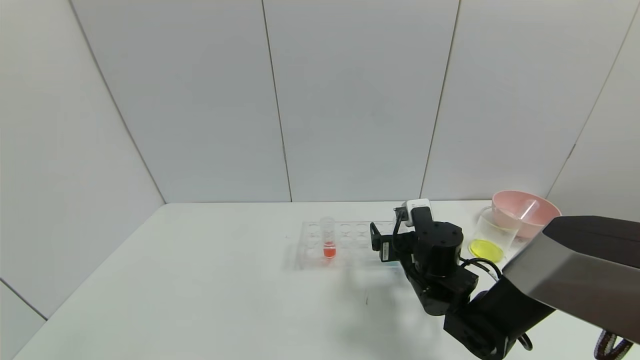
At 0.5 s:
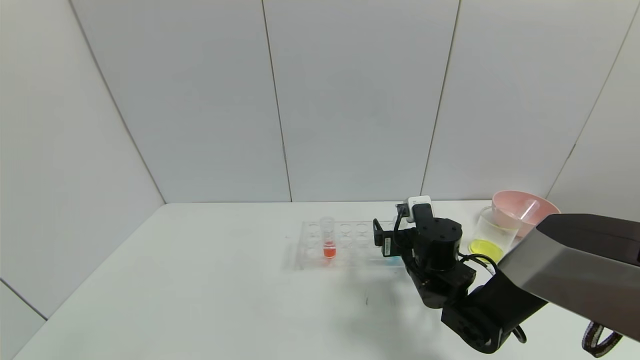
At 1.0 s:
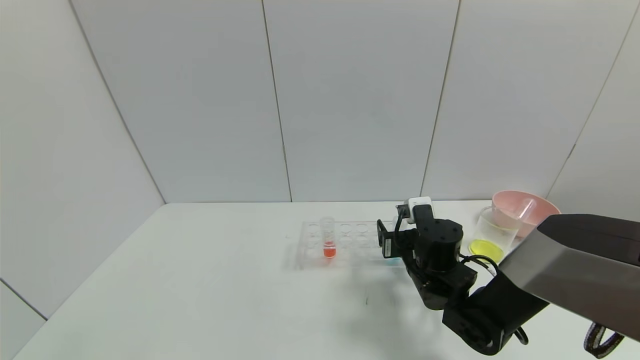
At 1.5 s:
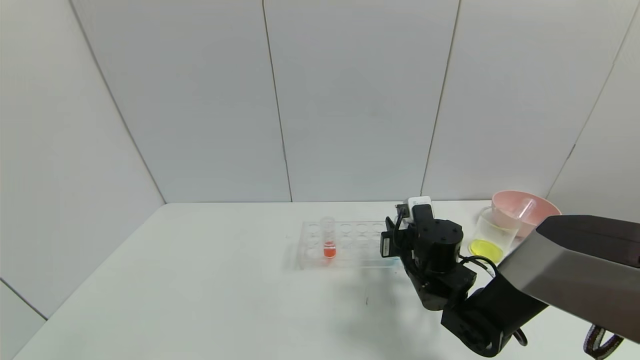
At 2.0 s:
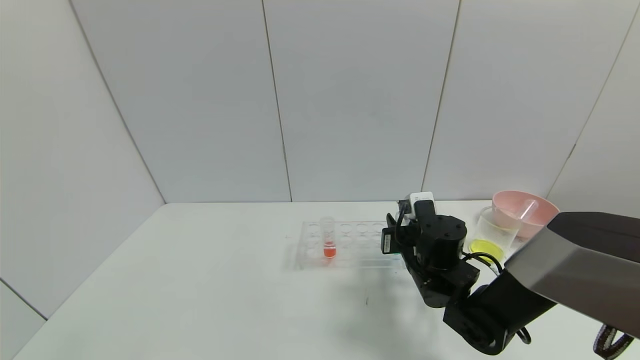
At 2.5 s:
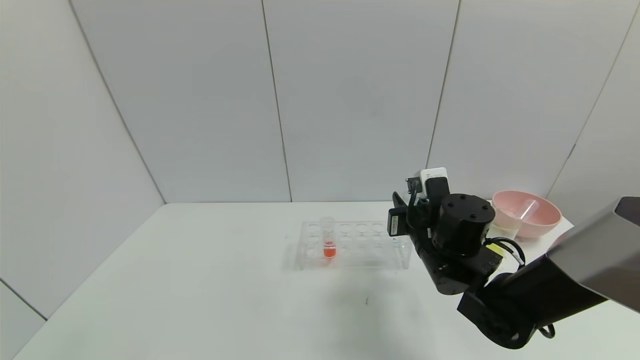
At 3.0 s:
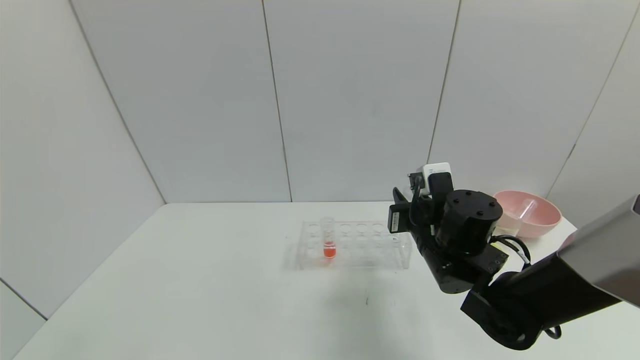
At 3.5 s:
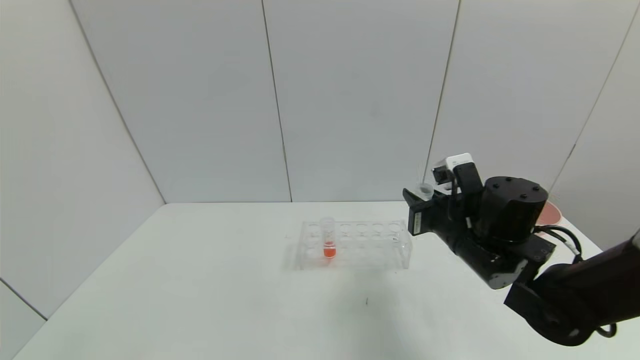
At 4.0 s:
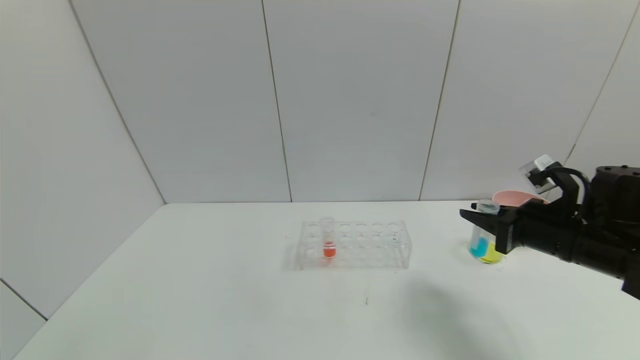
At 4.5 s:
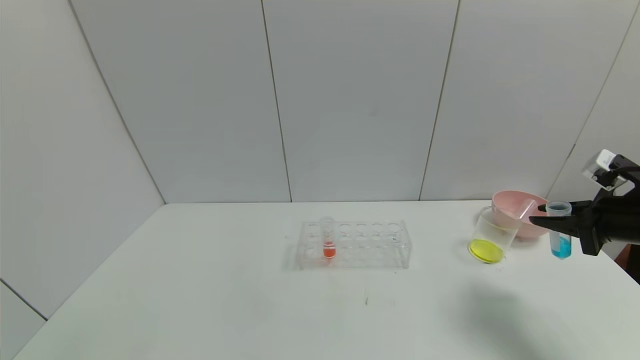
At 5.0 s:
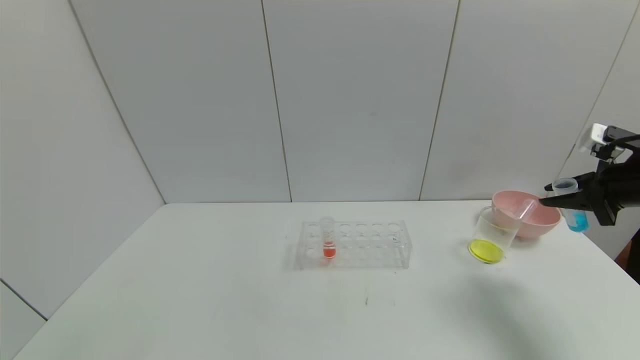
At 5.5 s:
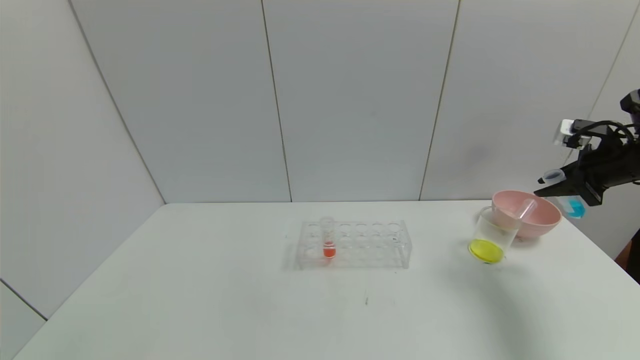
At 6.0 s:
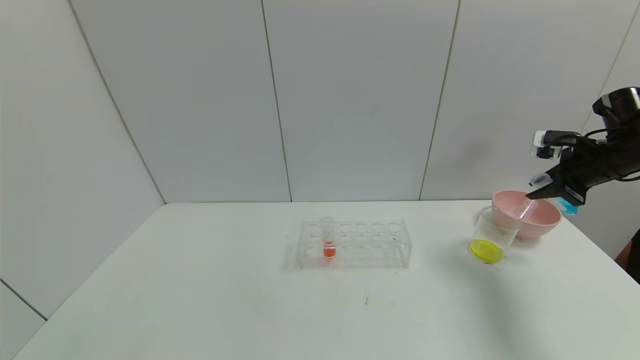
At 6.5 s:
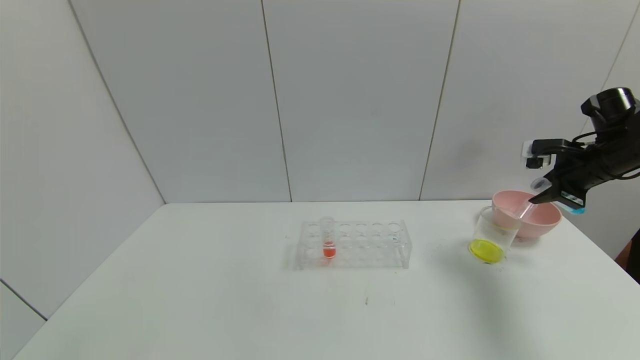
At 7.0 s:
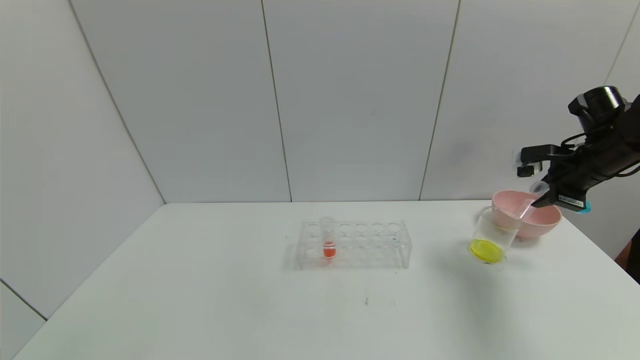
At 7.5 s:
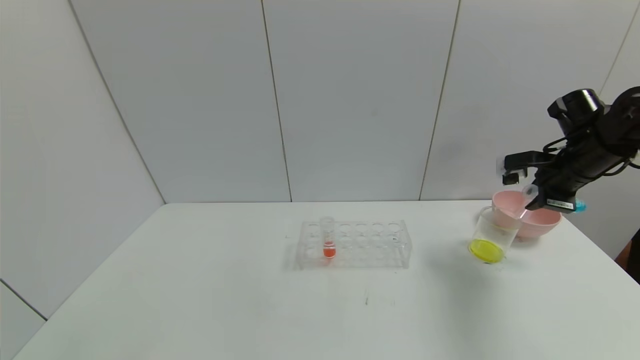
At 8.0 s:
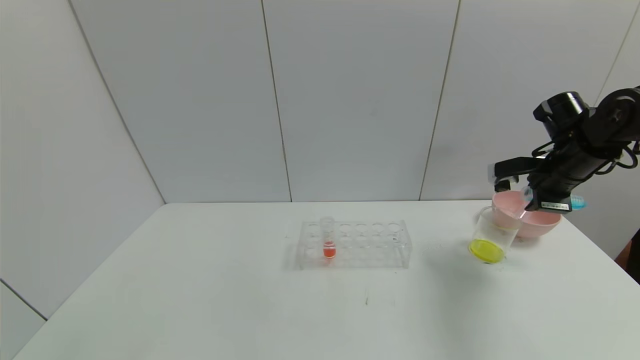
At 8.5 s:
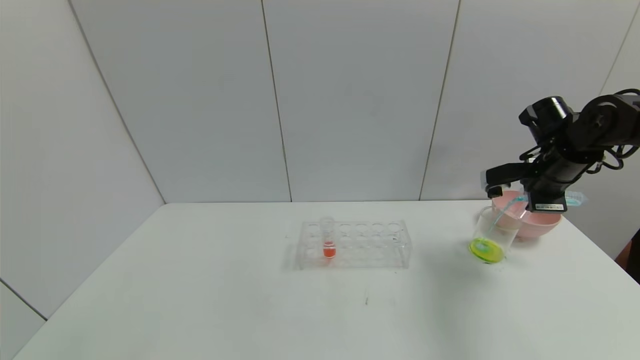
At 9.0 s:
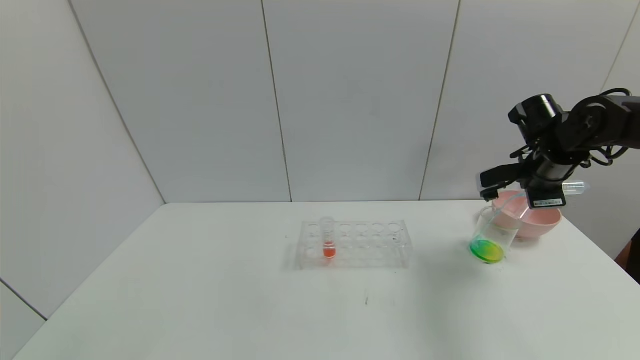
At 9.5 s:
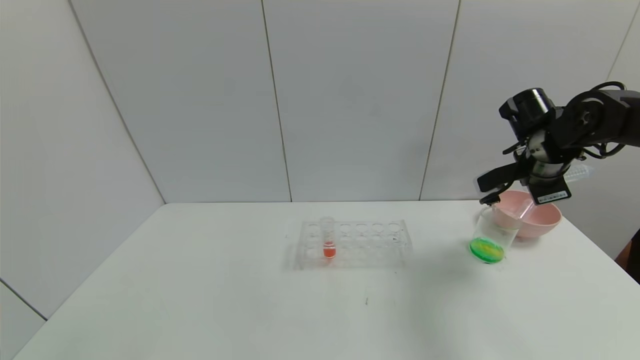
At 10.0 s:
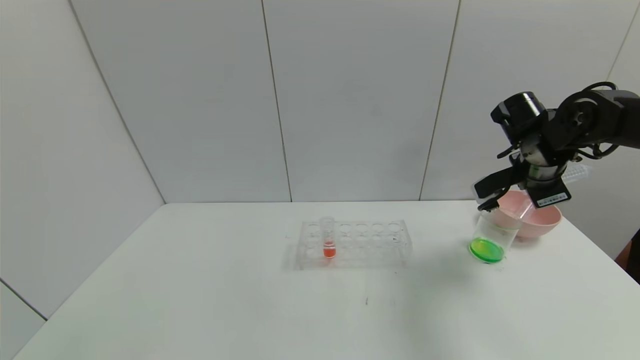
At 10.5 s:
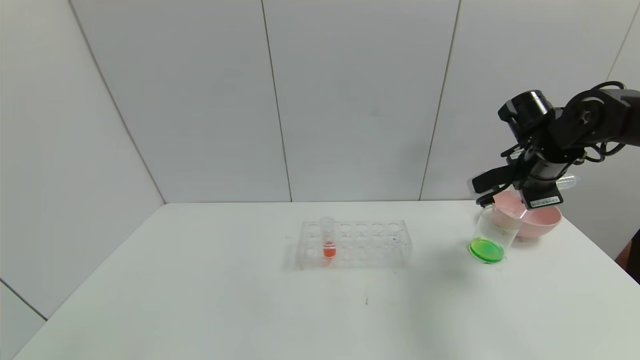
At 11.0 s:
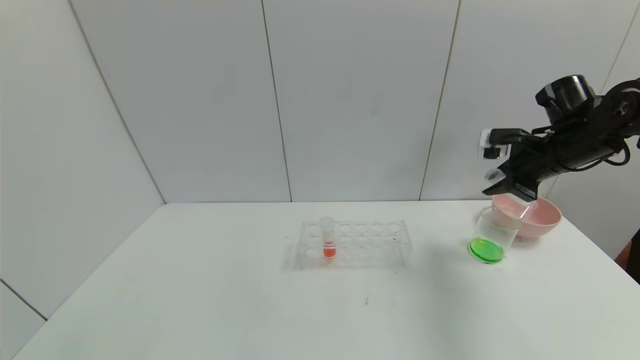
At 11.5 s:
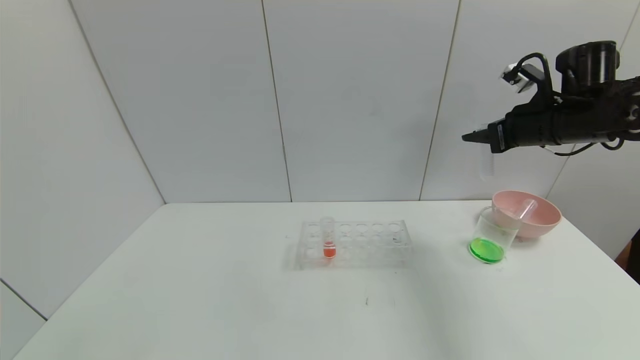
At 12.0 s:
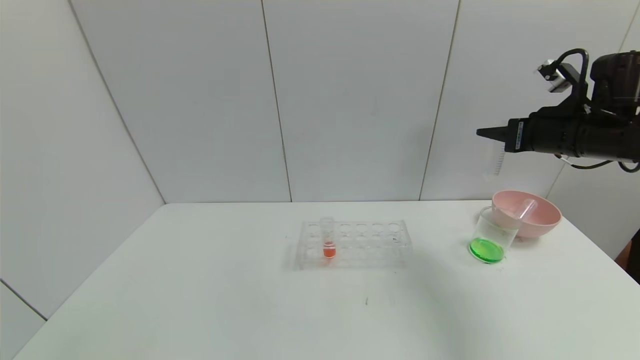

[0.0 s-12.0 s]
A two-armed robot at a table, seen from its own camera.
Task of the whole recording: pick up the test tube with yellow pigment and the test tube with blue pigment by grippers and pour them into the beaker.
Step, 0.0 to 4.5 s: Pick up the test tube containing the blue reagent with right gripper.
0.0 to 2.0 s: The right gripper closes up.
2.0 to 4.0 s: The right gripper moves to the right and upward, about 20 cm.
4.0 to 6.0 s: The right gripper shifts about 20 cm to the right, forward and upward.
6.0 to 8.0 s: The right gripper shifts about 5 cm to the left.
8.0 to 10.0 s: The right gripper heads to the left, covering roughly 5 cm.
10.0 to 12.0 s: The right gripper ends up about 5 cm from where it was.

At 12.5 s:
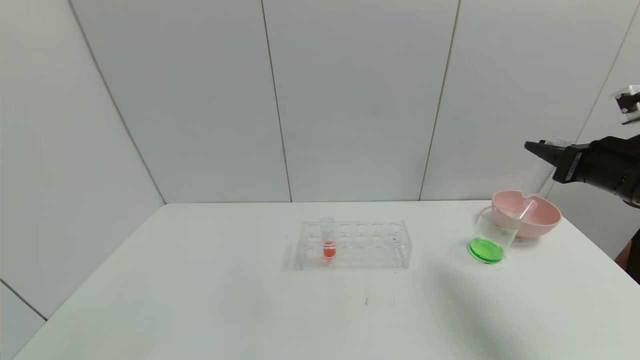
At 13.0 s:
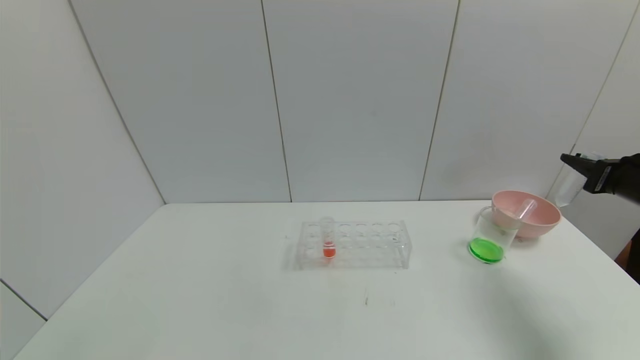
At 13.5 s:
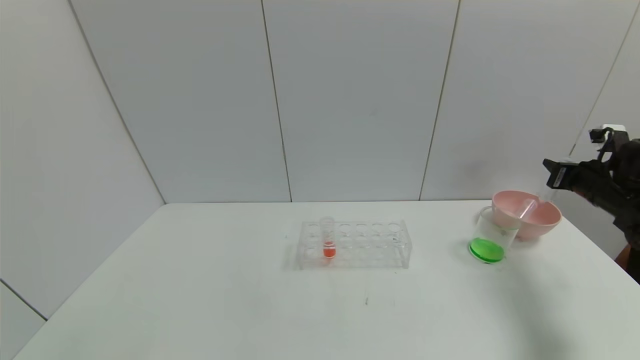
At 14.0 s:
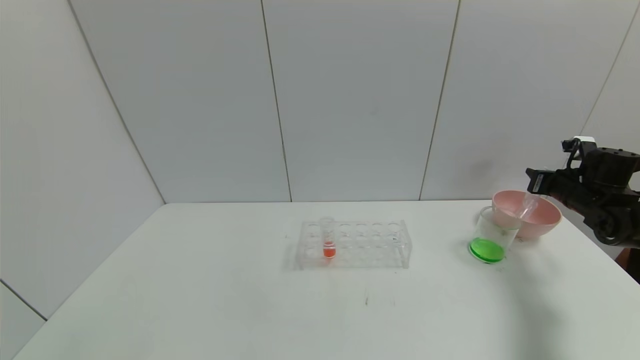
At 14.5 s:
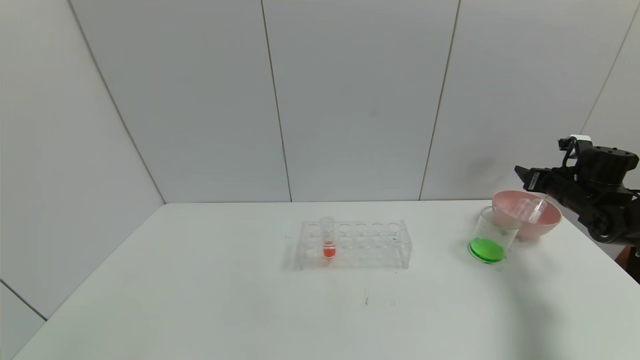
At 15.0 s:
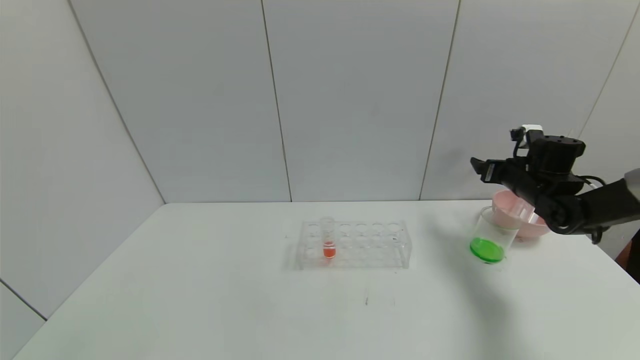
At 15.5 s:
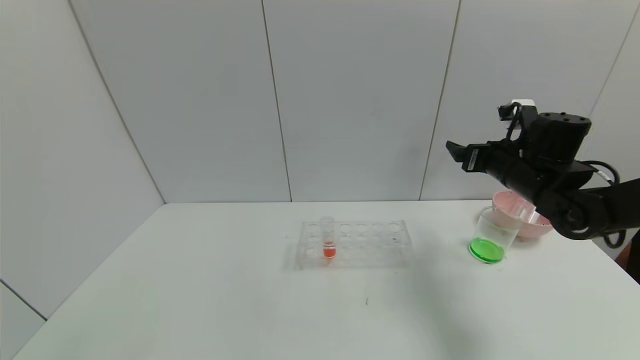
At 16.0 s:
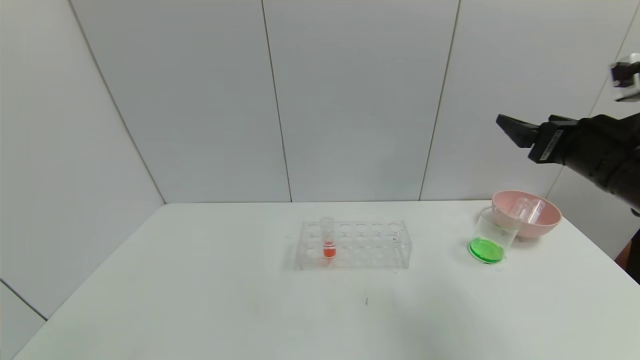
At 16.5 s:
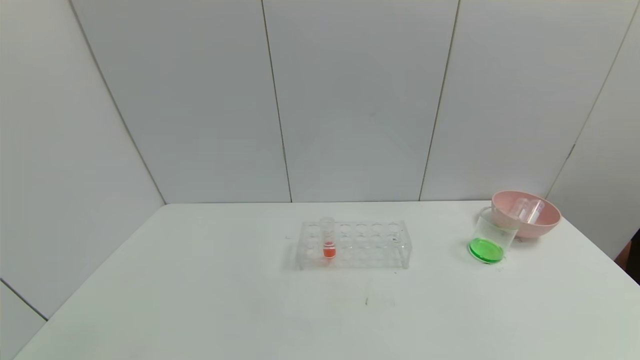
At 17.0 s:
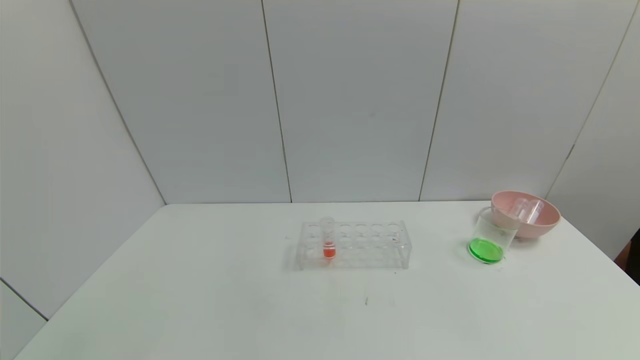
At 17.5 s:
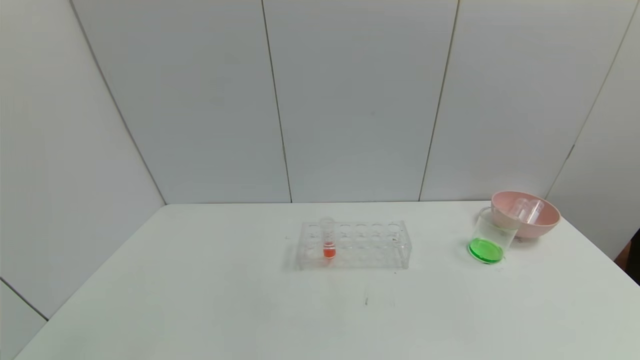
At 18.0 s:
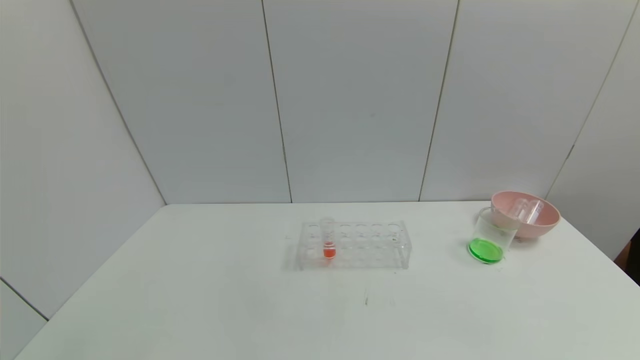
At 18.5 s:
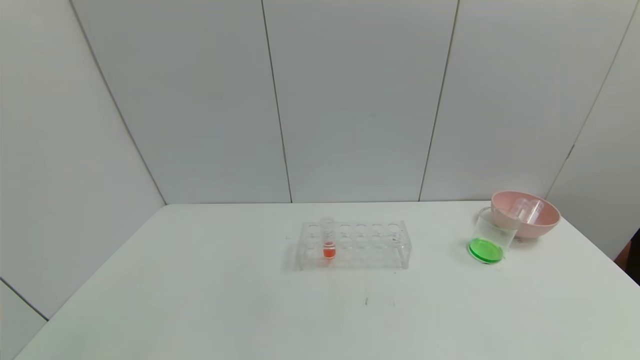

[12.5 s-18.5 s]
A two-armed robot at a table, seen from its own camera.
Task of the whole recording: pick up the test tube with yellow pigment and the test tube with blue pigment by grippers and pour them into the beaker.
Step, 13.5 to 16.0 s: Place the test tube into the bowl with right gripper.
12.5 to 14.5 s: The right gripper goes approximately 20 cm forward, downward and to the right, and opens.
14.5 to 16.5 s: The right gripper shifts approximately 35 cm backward and upward, and opens its fingers.
